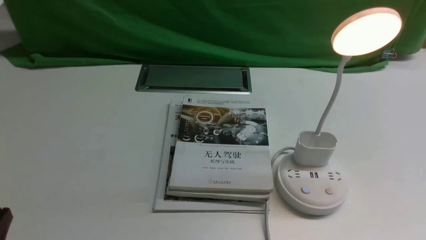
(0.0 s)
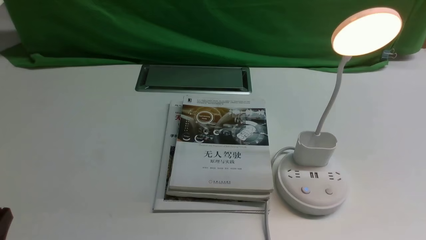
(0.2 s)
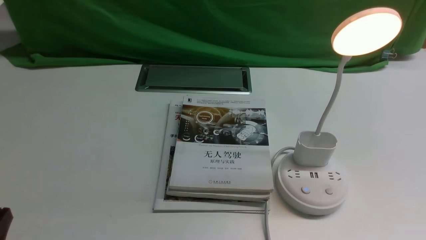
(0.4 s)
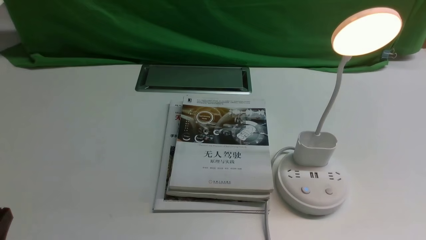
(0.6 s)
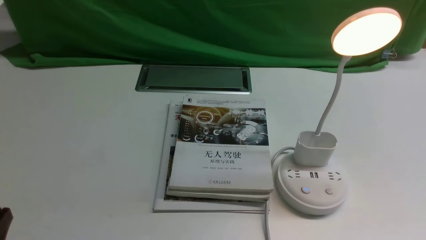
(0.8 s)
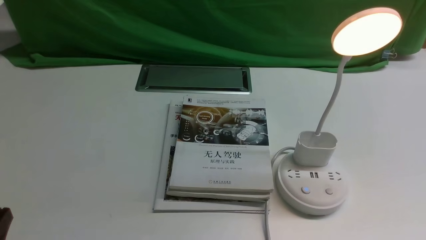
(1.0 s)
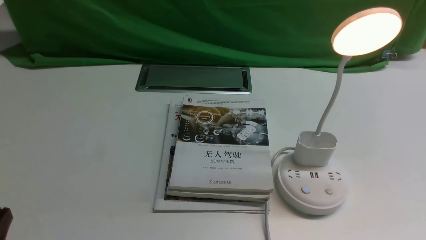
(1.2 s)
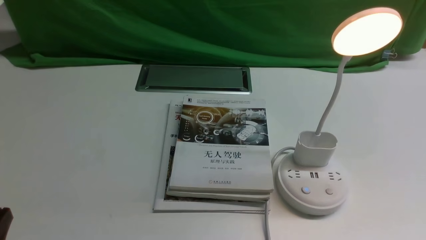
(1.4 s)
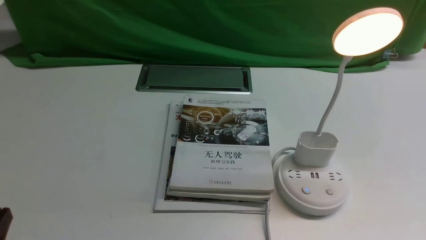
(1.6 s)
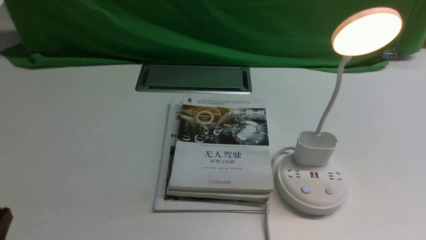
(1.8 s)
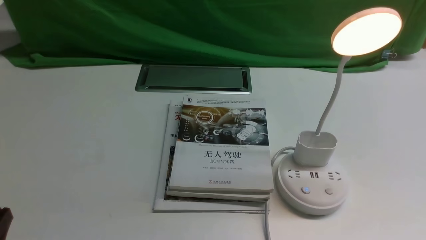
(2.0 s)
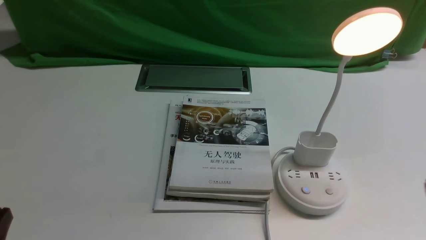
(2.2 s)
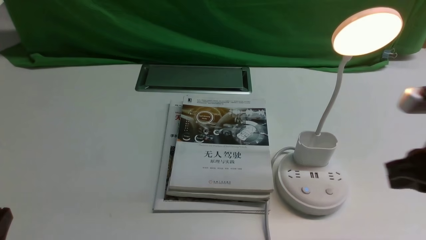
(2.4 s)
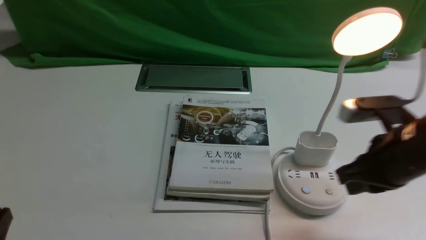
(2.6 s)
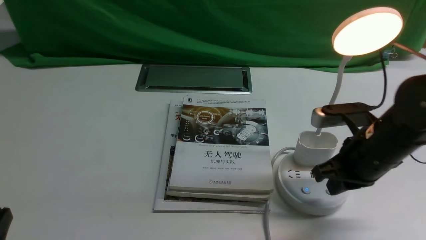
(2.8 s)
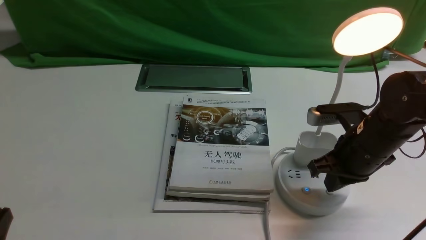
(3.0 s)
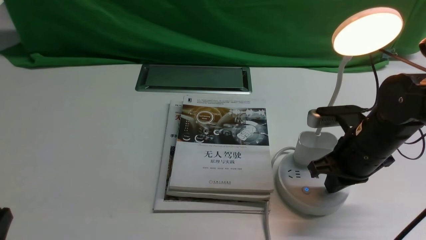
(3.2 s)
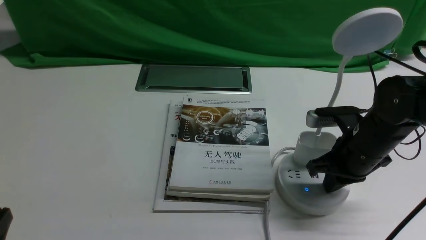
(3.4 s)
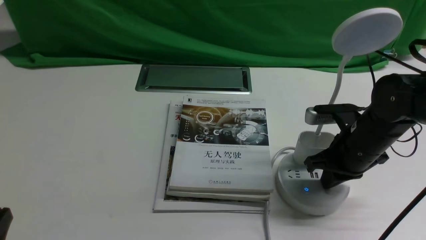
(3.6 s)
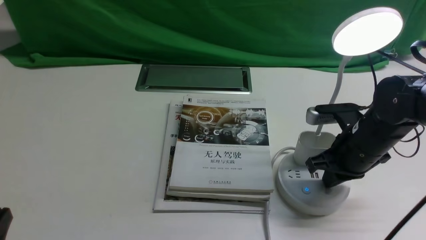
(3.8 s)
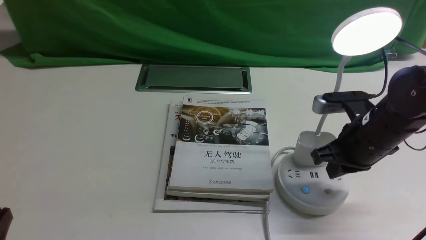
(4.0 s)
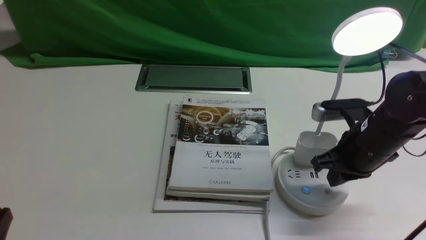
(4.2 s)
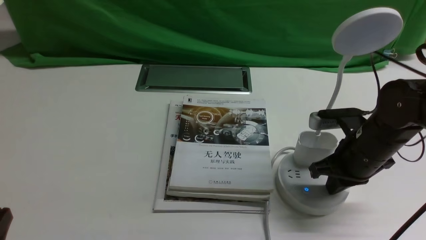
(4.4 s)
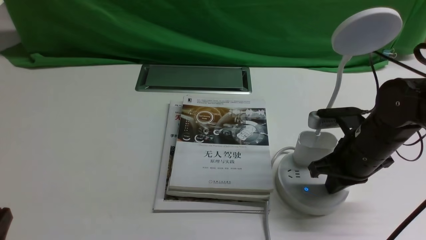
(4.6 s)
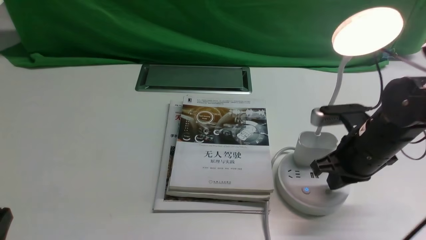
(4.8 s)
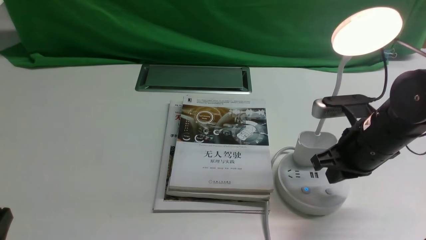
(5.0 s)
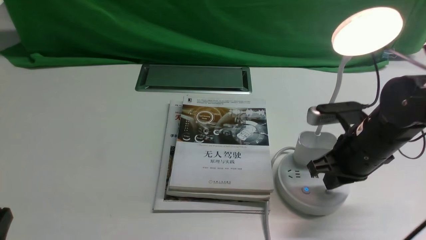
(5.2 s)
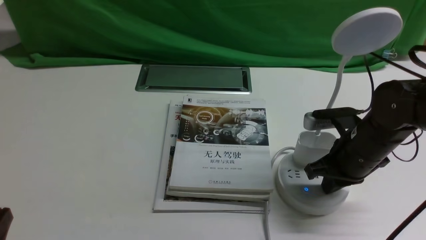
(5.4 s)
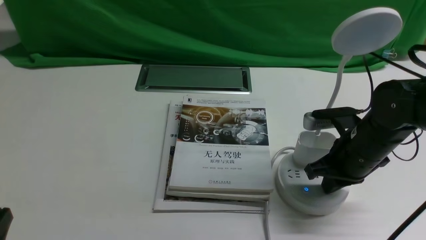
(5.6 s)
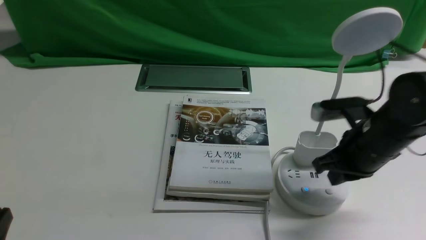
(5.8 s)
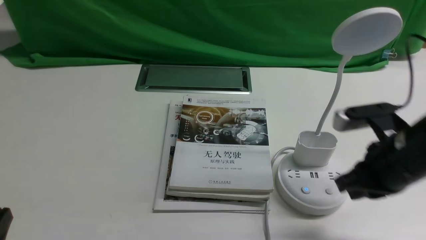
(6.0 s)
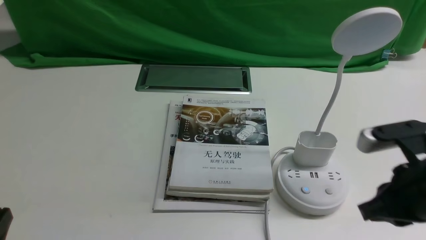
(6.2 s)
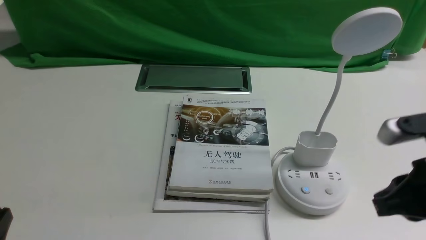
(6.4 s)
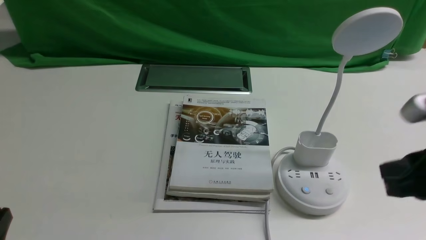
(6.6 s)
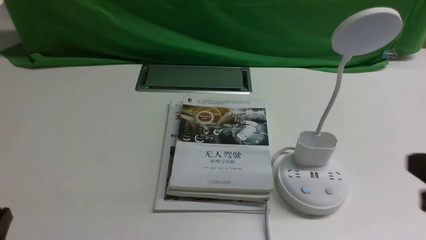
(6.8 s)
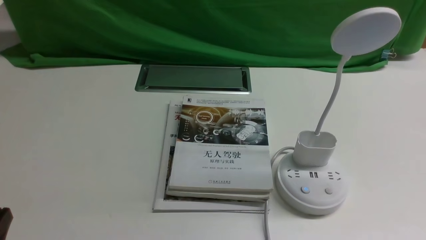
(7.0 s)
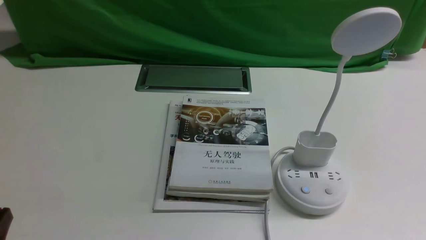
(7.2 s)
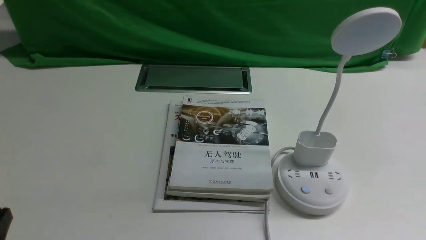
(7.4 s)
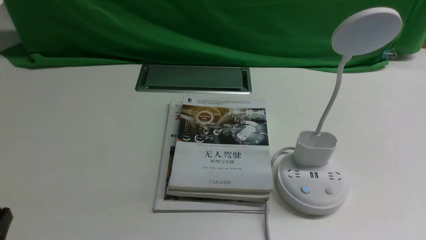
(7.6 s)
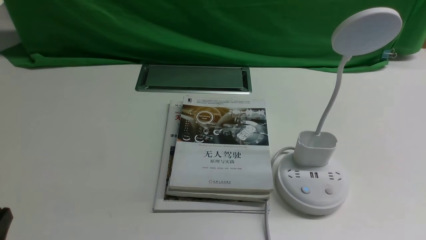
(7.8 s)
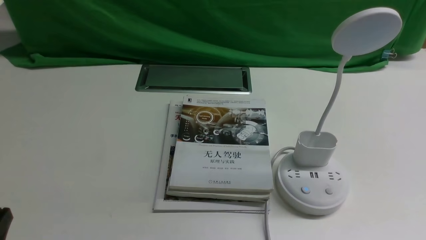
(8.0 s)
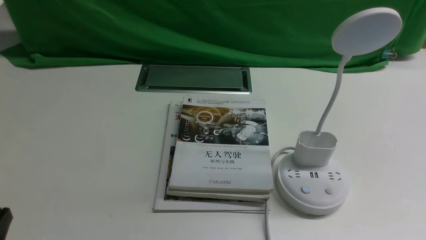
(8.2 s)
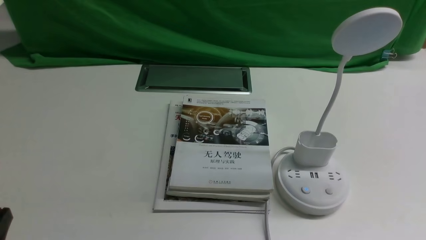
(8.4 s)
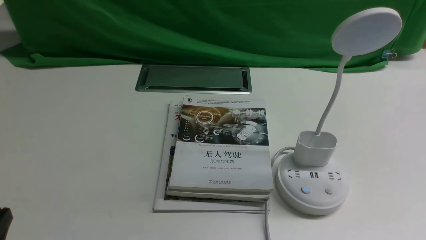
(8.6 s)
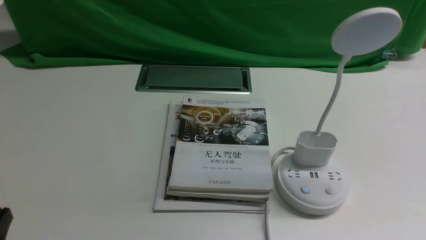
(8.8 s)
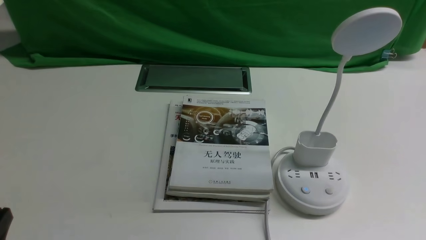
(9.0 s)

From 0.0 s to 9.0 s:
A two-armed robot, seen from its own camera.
Task of the whole recording: turn off the desk lamp on the white desktop by hand.
Step, from 0.0 s to 5.8 s: use the right arm to press the button switch on the lamp holder.
From 1.6 s to 3.0 s: The right gripper travels forward and to the left by some 25 cm, and closes.
From 3.0 s to 4.4 s: The grippers move only a little.
From 4.4 s to 6.0 s: The right gripper is displaced backward and upward by approximately 10 cm.
From 6.0 s to 7.6 s: The right gripper moves backward and to the right, some 20 cm.
From 7.6 s to 9.0 s: Both grippers stay put.
